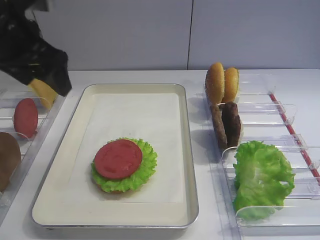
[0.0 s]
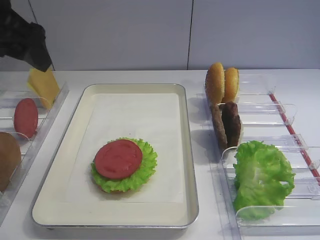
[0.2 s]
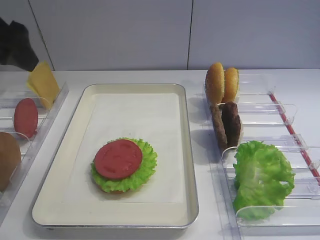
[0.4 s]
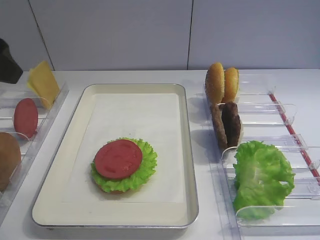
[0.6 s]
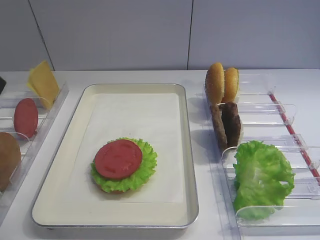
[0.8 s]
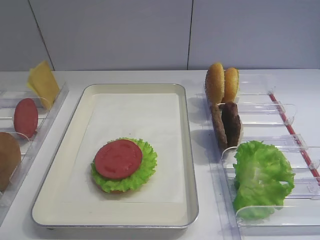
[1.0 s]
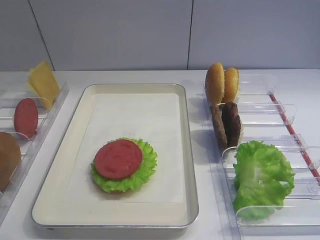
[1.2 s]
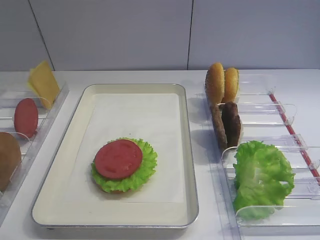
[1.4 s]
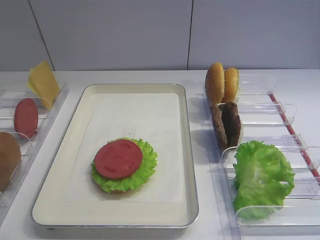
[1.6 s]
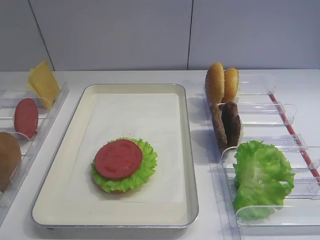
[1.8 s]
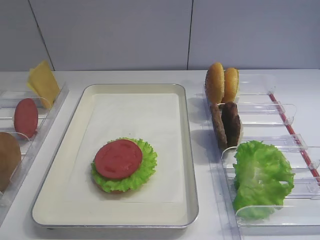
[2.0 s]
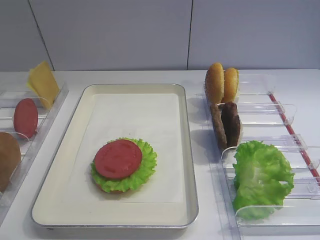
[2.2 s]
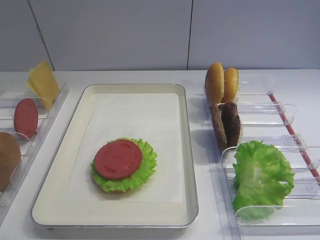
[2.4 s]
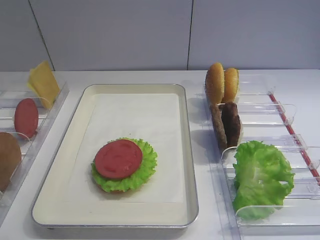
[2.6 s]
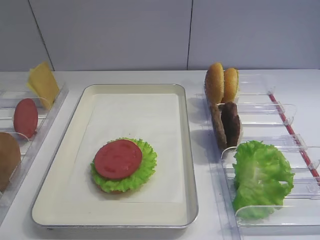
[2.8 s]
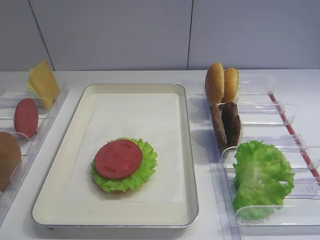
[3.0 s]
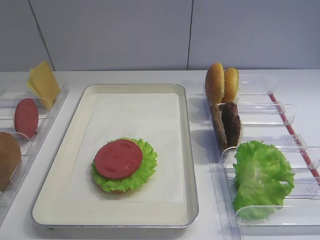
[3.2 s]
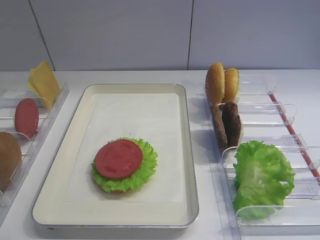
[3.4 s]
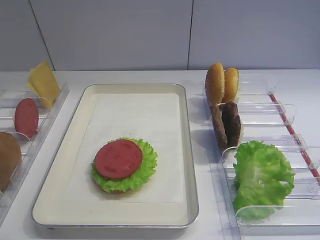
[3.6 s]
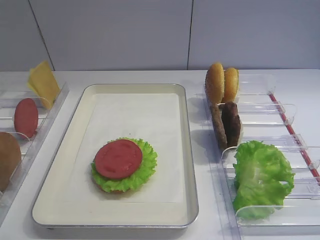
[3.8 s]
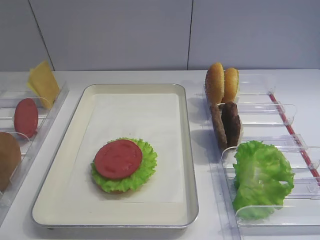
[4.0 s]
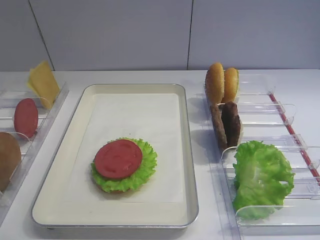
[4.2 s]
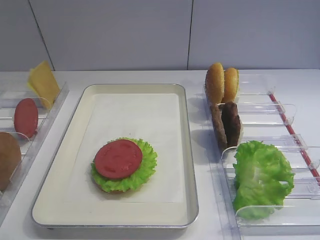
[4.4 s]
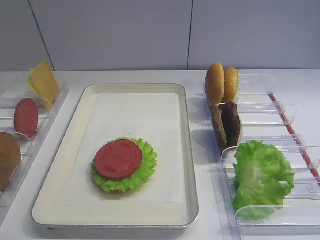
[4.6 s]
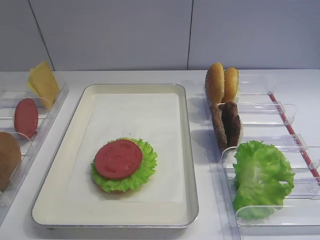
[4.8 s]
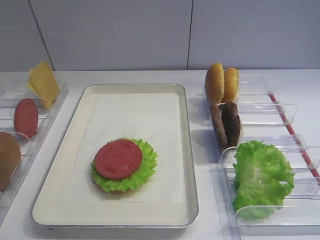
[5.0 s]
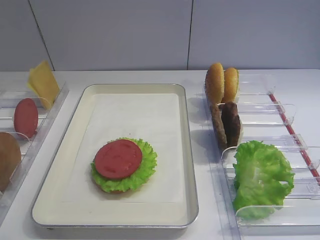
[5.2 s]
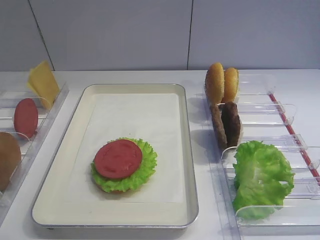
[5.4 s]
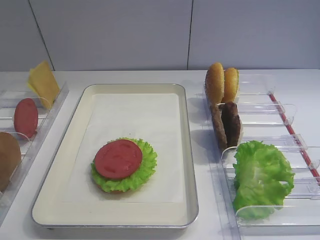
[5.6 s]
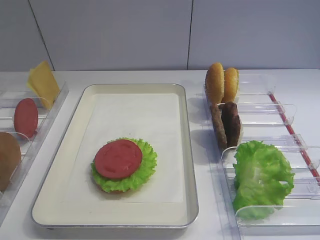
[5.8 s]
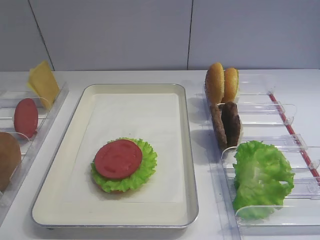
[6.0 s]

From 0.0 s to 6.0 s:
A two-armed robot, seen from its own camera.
From 0.0 s to 1.6 s: The left gripper travels backward by about 25 cm.
From 4.4 s to 6.0 s: Both grippers stay put.
